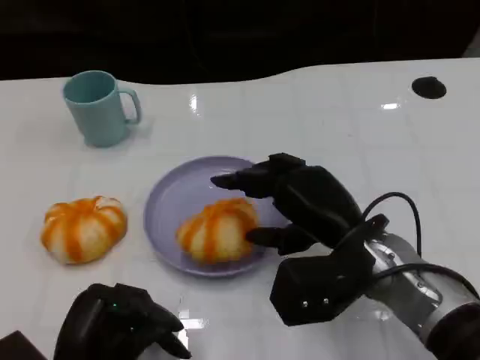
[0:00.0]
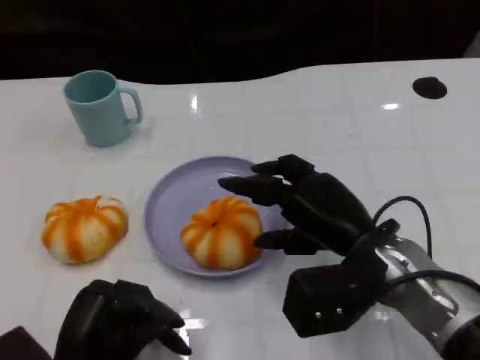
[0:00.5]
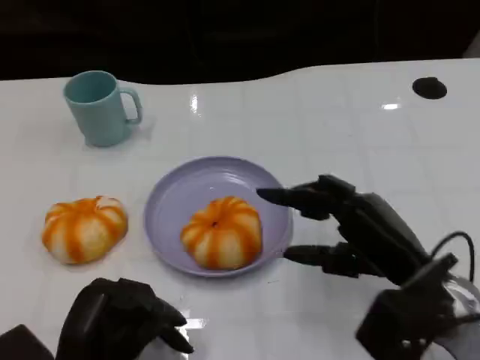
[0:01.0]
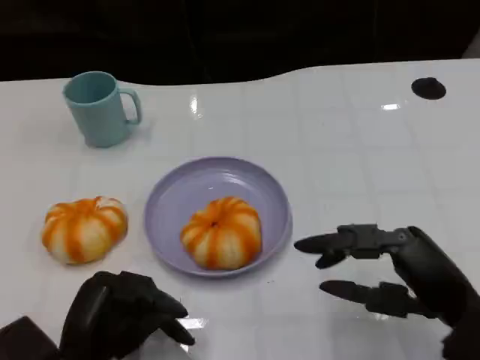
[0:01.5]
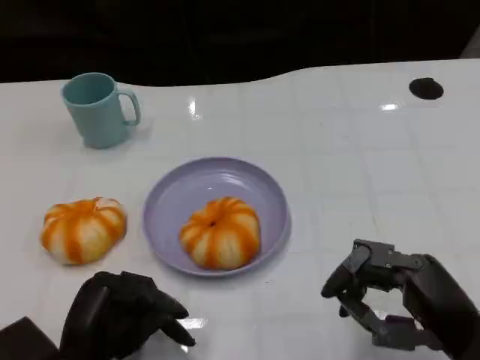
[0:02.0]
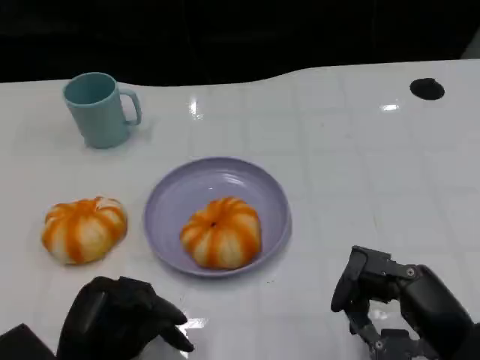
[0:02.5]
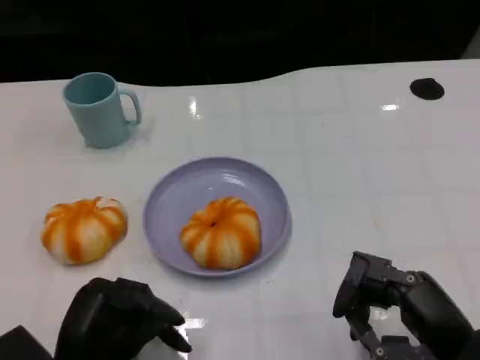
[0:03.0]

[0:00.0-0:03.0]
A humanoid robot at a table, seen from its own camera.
Task of the whole recording: Grasp the bread from the table and place it into the plate.
0:00.0 to 0:01.5: The right hand heads to the right and backward, covering some 15 cm.
0:01.5 to 0:03.0: The hands make only small movements.

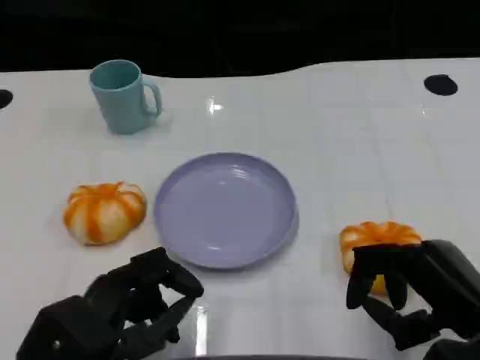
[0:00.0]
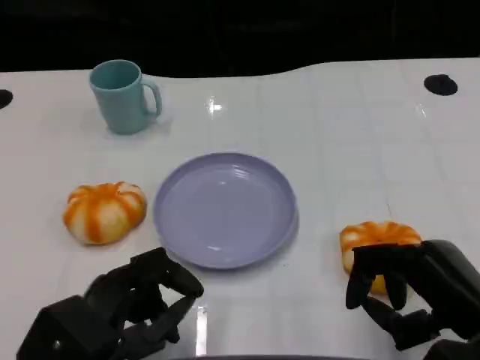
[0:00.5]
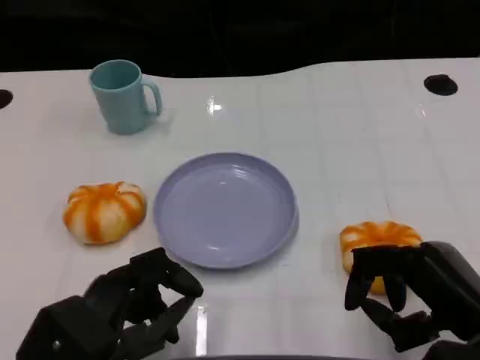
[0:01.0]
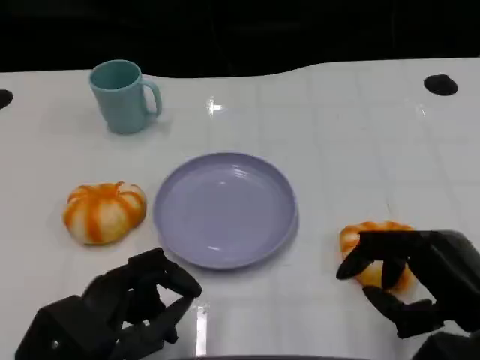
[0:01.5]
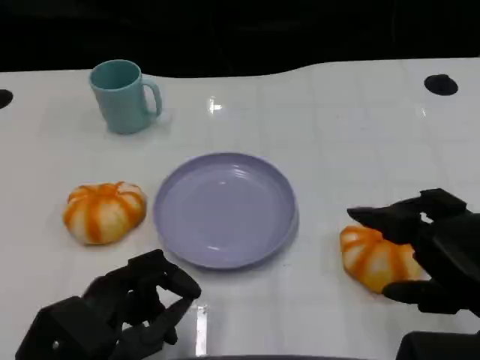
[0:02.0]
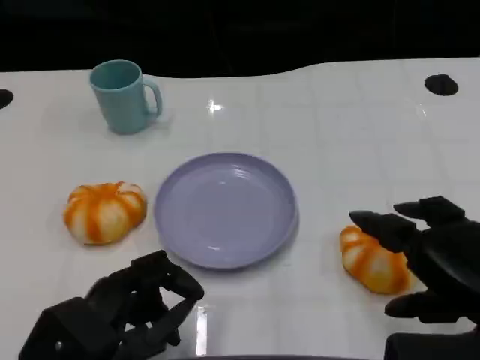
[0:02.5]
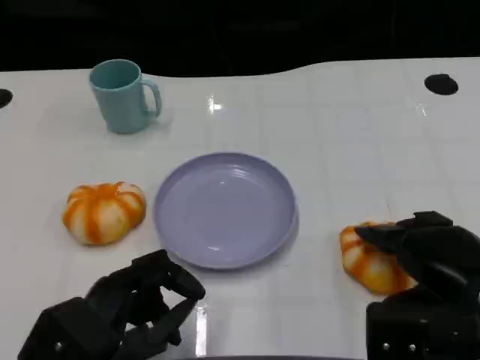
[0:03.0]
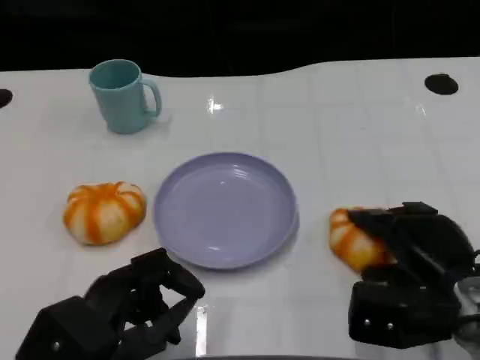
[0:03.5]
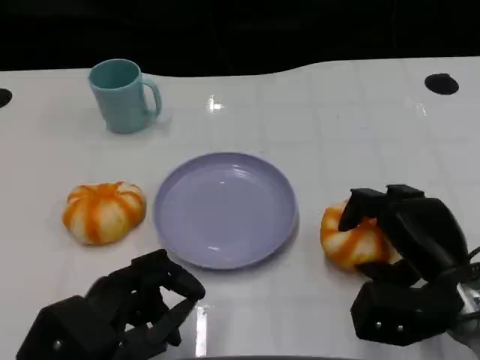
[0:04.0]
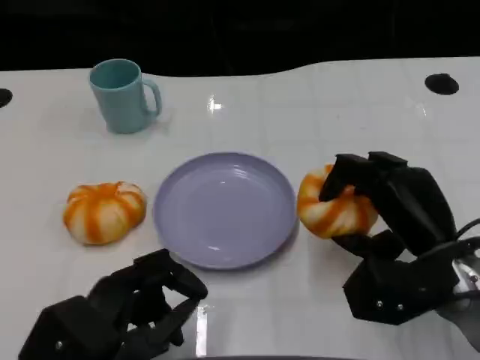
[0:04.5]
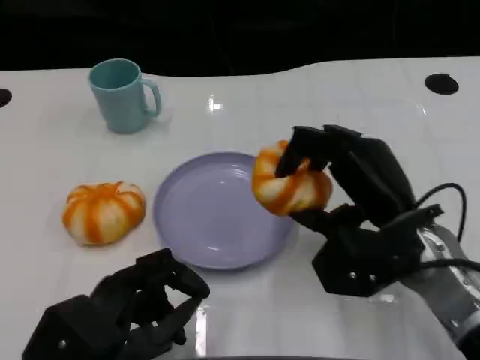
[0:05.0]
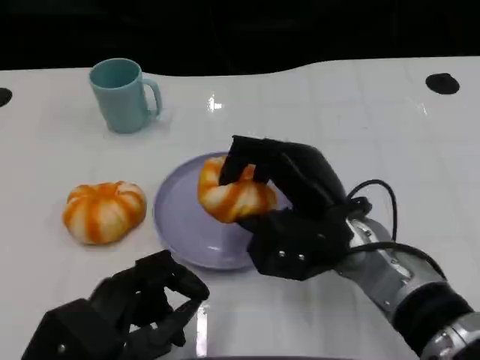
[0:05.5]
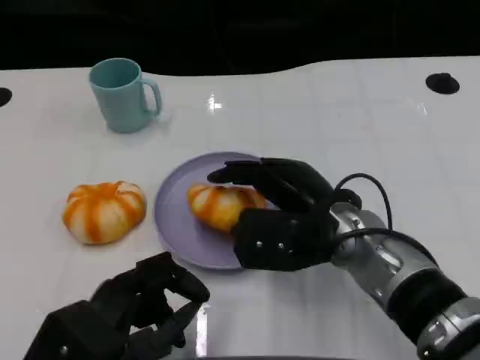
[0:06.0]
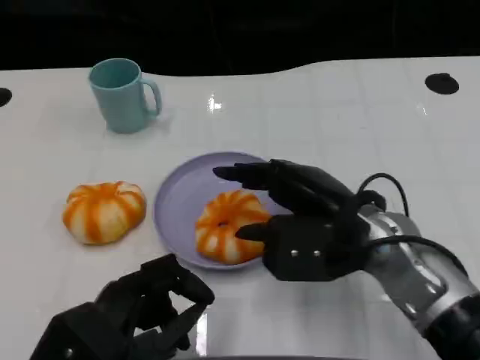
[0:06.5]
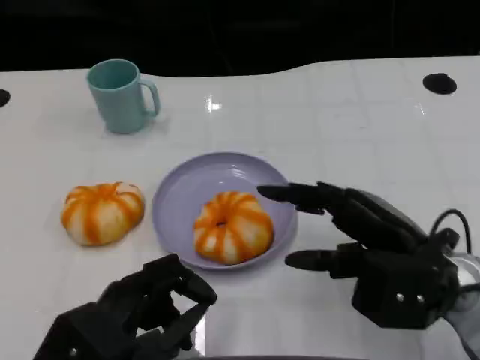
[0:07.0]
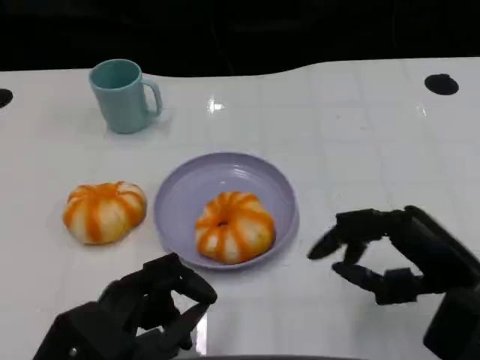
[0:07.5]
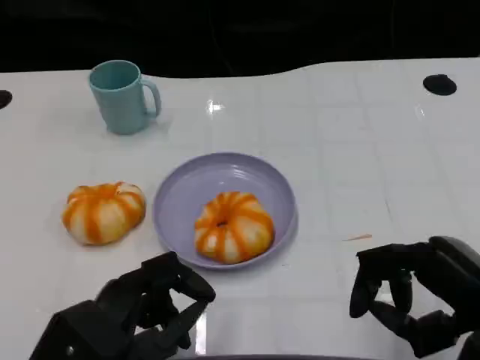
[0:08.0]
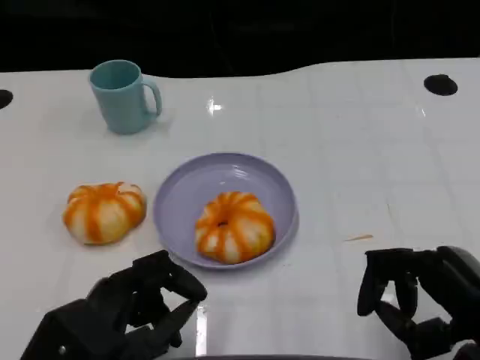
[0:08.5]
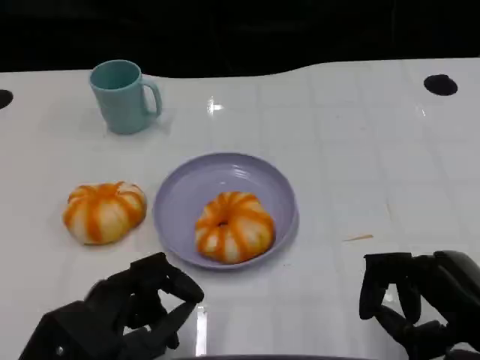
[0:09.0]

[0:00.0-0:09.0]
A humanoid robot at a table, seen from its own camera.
Task of the whole recording: Grasp the bread from the table and place it into the plate.
0:02.0 to 0:04.5: The right hand moves forward, some 10 cm.
0:04.5 to 0:07.0: The right hand moves about 10 cm to the left and comes back.
0:07.0 to 0:09.0: The right hand is displaced backward and to the right by about 10 cm.

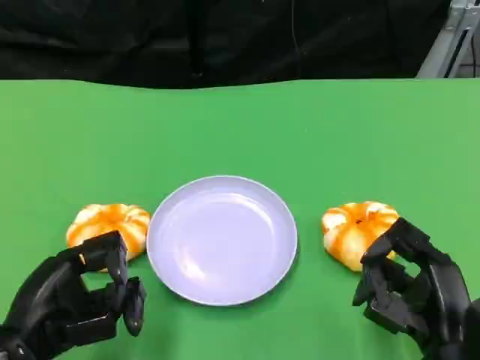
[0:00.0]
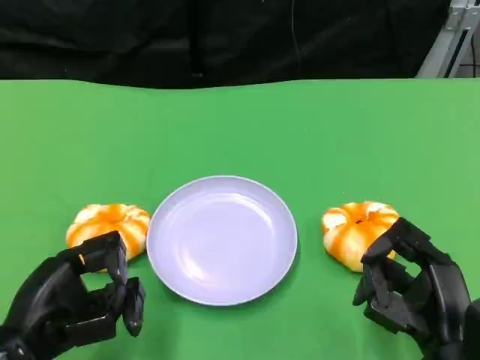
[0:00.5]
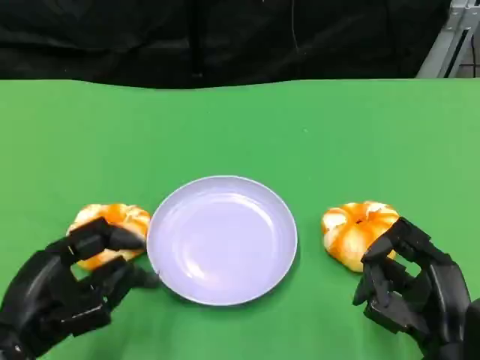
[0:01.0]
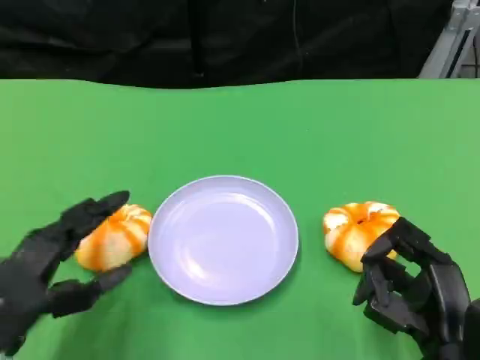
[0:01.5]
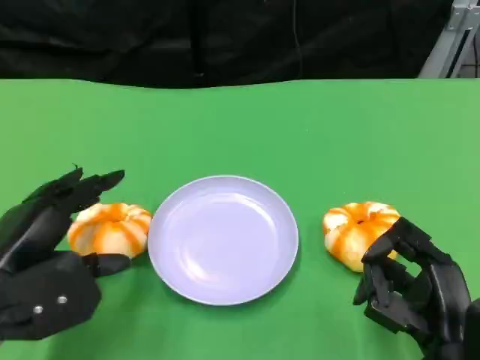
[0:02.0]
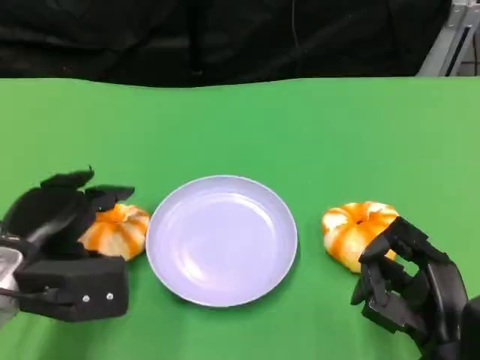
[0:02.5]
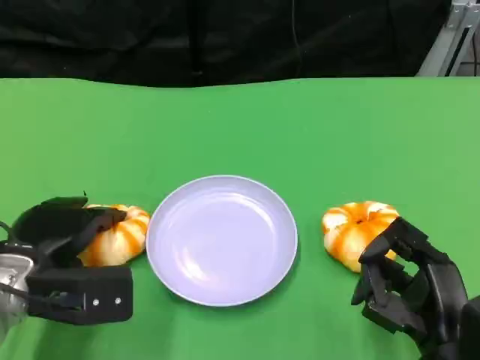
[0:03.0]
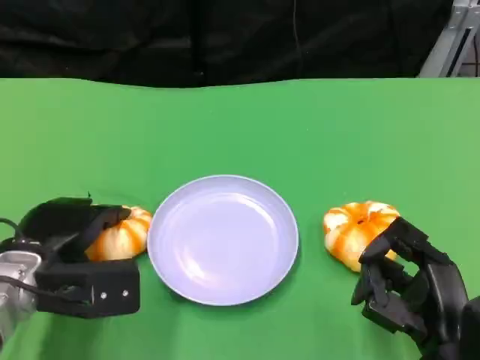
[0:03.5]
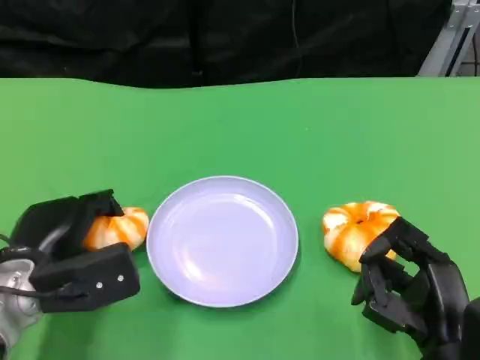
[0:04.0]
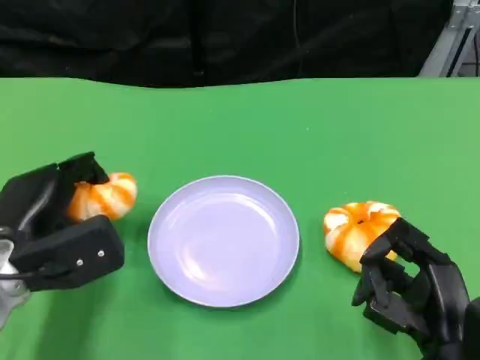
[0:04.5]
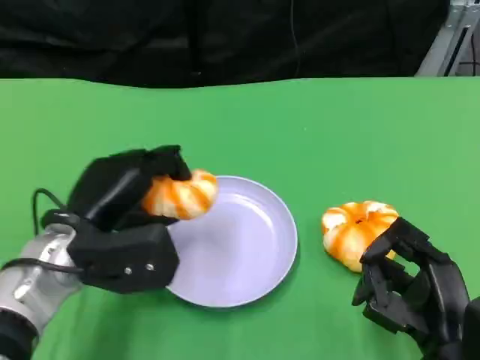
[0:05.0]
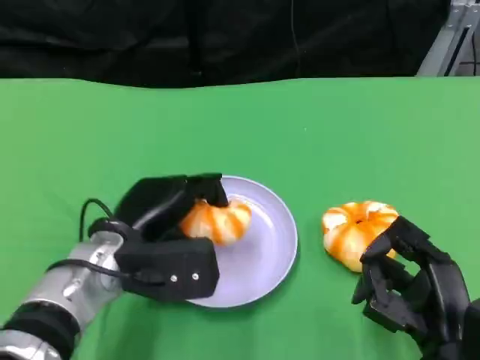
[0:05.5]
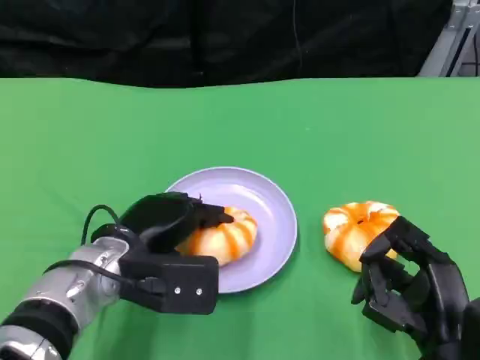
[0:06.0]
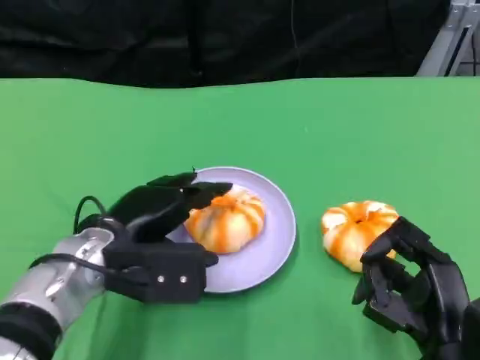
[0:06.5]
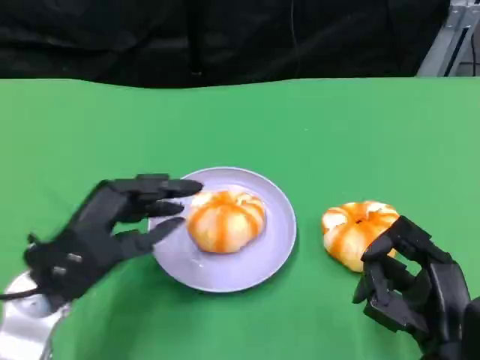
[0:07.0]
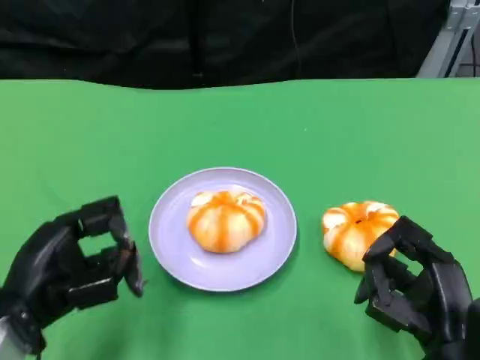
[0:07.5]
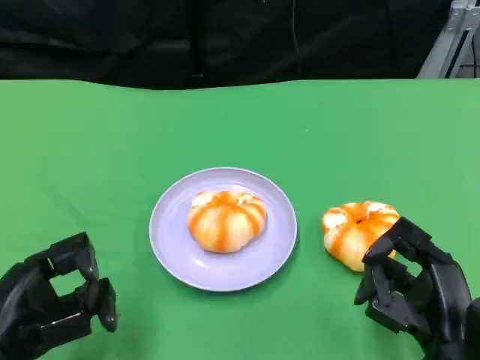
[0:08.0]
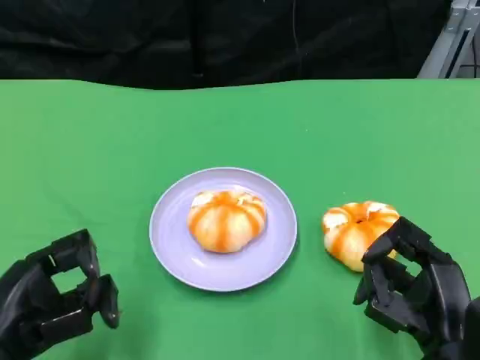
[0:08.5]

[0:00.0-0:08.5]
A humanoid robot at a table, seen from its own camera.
Task of the whole recording: Grasp the bread from the table and place it into the plate.
0:00.0 to 0:02.0: The left hand shifts by some 5 cm.
0:02.0 to 0:04.0: The left hand travels downward by some 5 cm.
0:04.0 to 0:06.5: The left hand is displaced to the right by roughly 5 cm.
0:06.5 to 0:08.5: The left hand shifts about 15 cm backward and to the left.

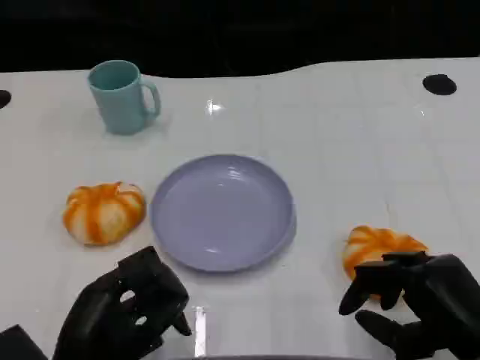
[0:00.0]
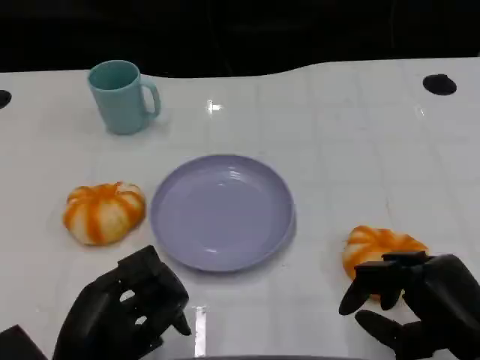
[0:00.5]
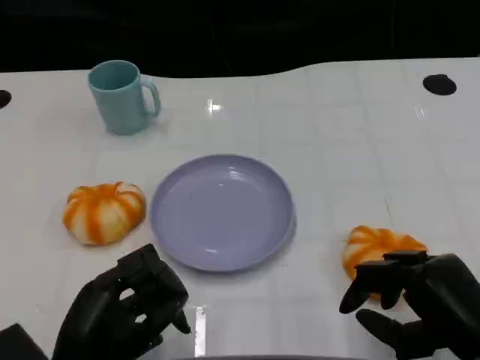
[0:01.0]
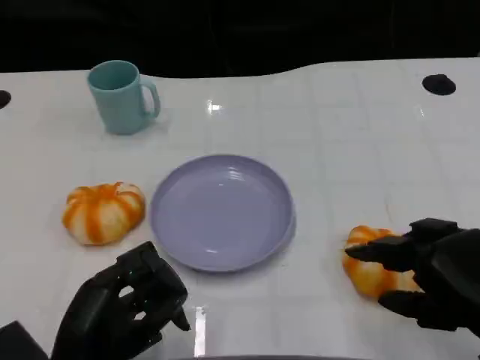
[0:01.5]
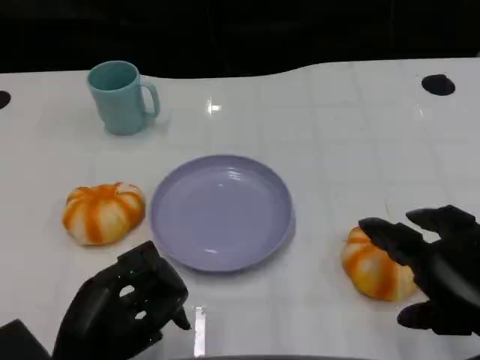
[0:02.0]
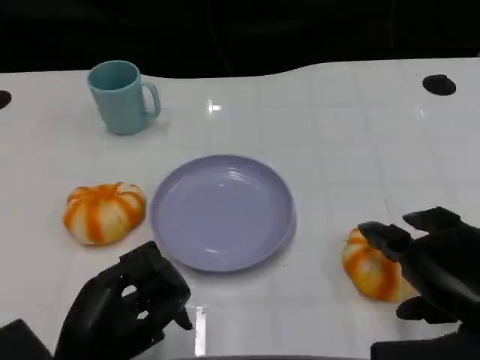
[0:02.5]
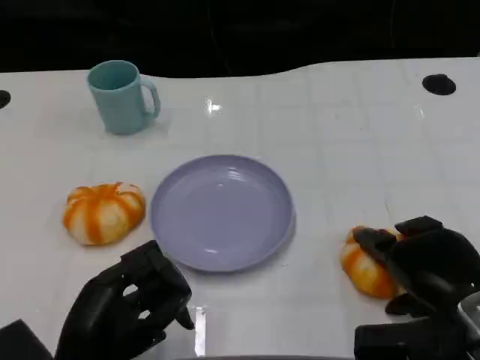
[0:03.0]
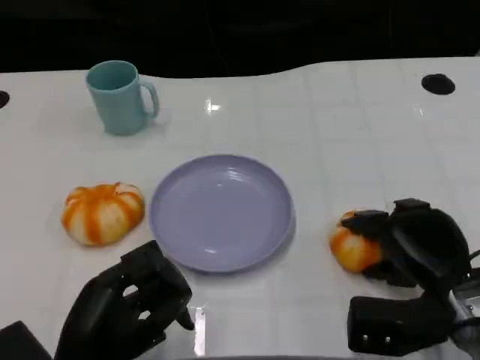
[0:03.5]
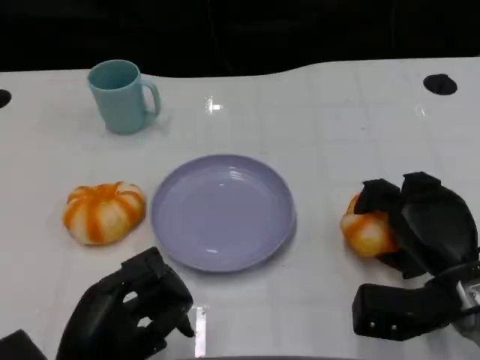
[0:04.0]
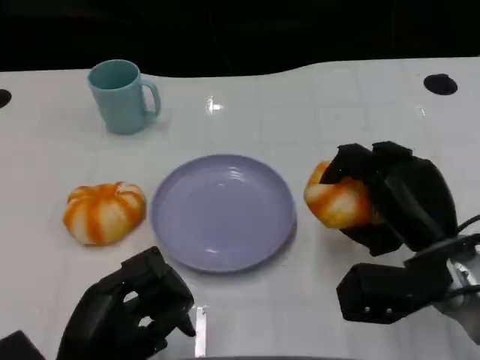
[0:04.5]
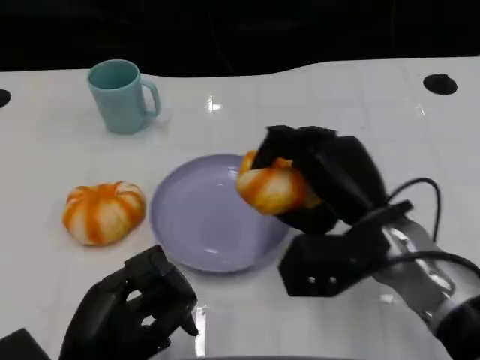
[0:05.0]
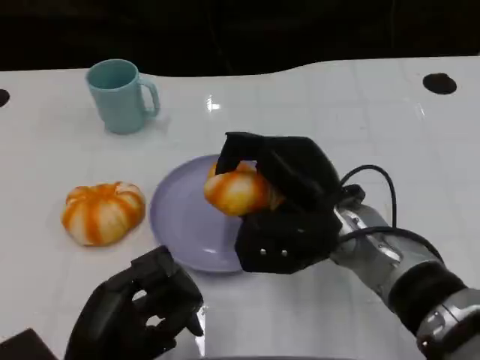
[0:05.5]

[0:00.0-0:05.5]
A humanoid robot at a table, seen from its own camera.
Task of the whole recording: Grasp the bread from the table and place it into the plate.
0:00.0 to 0:02.0: The right hand shifts some 5 cm upward.
0:02.0 to 0:03.5: The right hand is displaced downward and forward by some 15 cm.
0:03.5 to 0:05.5: The right hand is displaced to the left and upward by approximately 15 cm.
